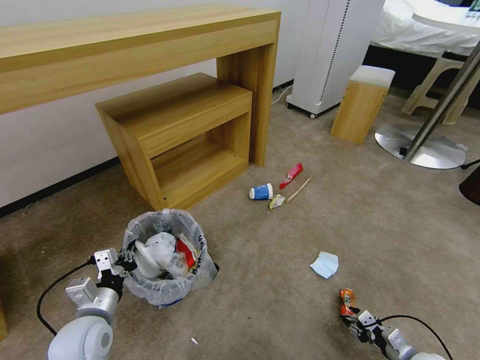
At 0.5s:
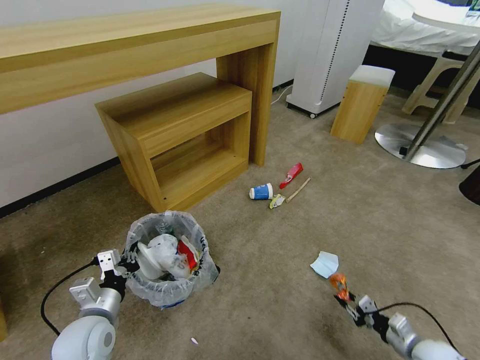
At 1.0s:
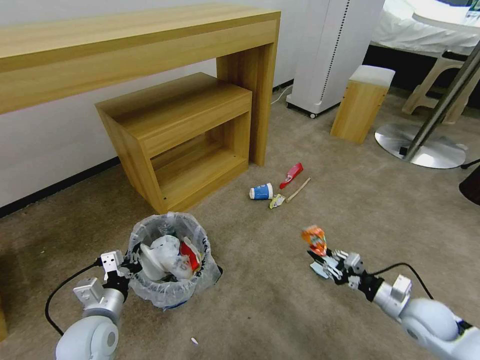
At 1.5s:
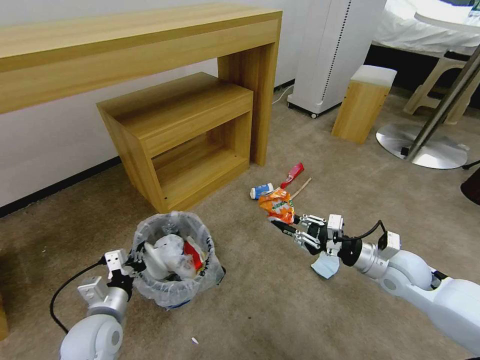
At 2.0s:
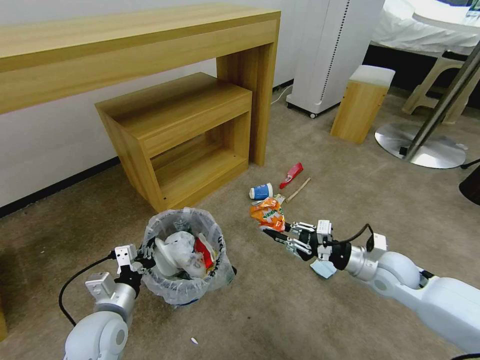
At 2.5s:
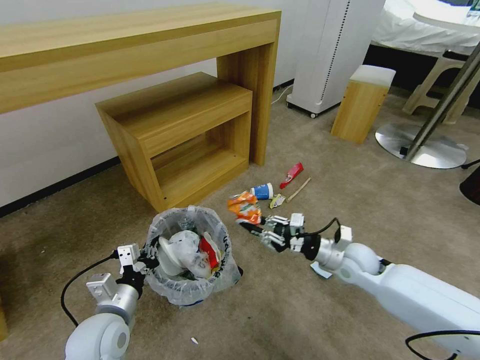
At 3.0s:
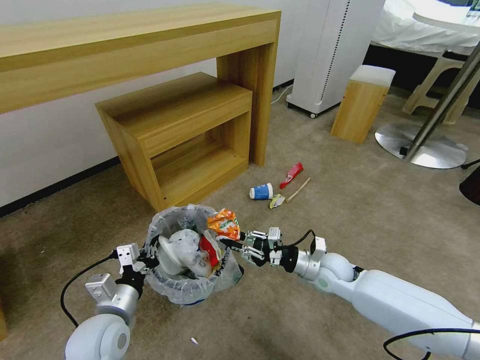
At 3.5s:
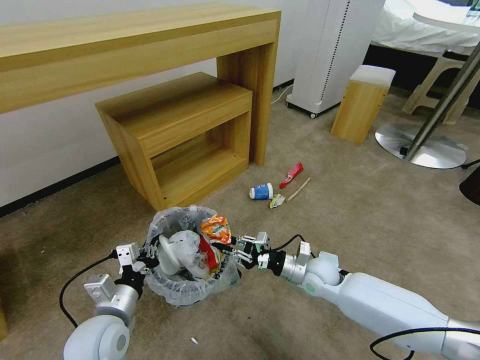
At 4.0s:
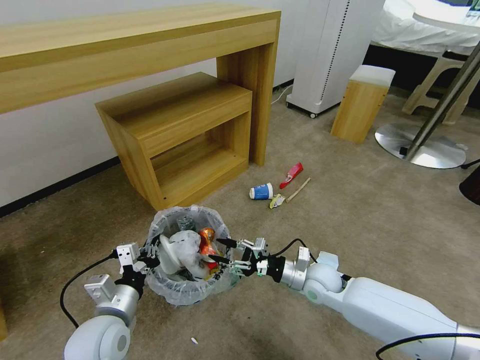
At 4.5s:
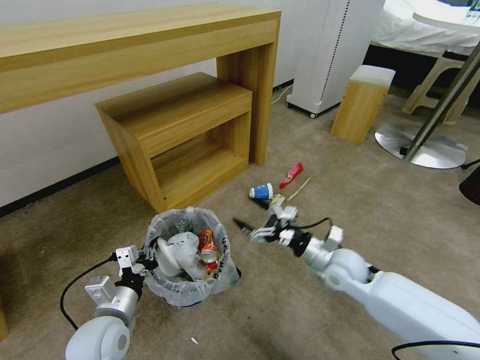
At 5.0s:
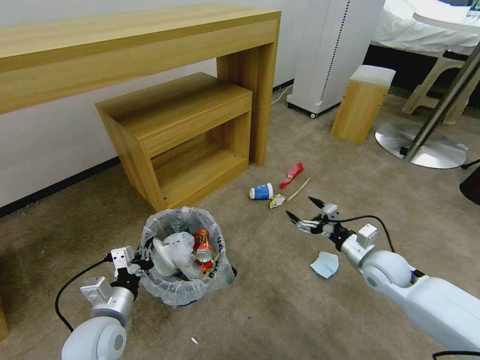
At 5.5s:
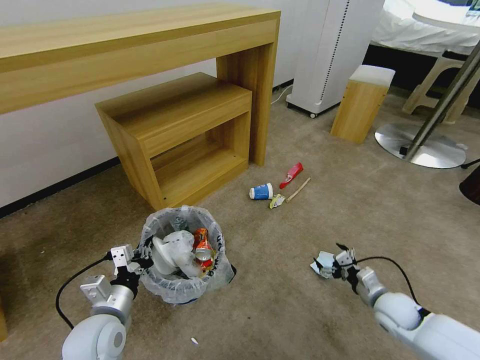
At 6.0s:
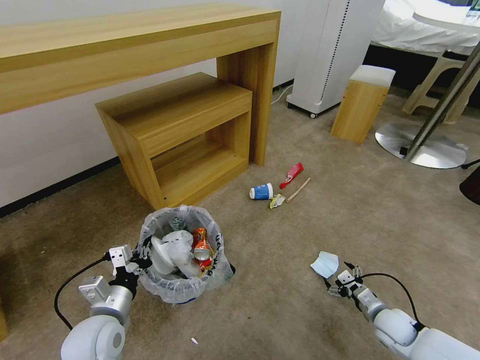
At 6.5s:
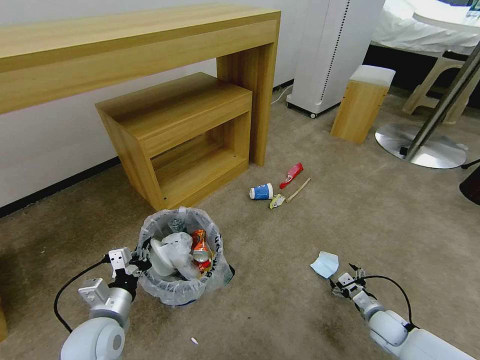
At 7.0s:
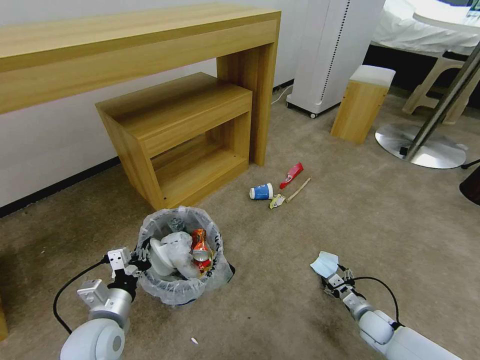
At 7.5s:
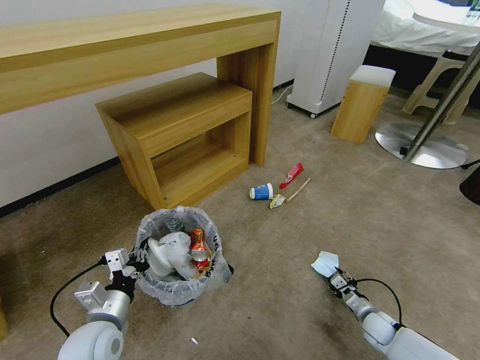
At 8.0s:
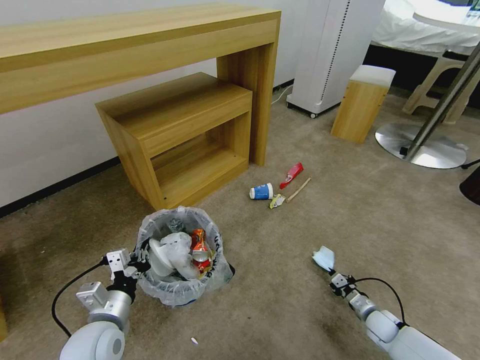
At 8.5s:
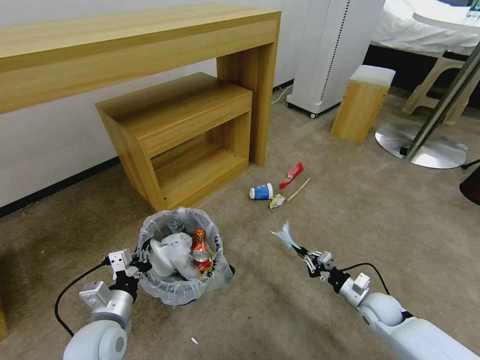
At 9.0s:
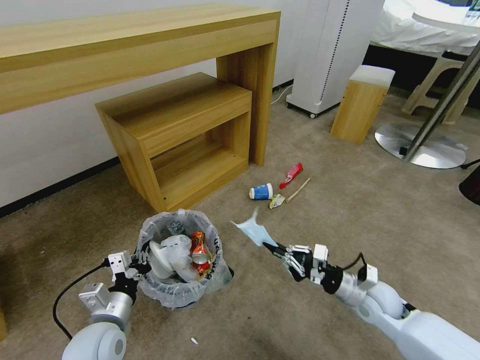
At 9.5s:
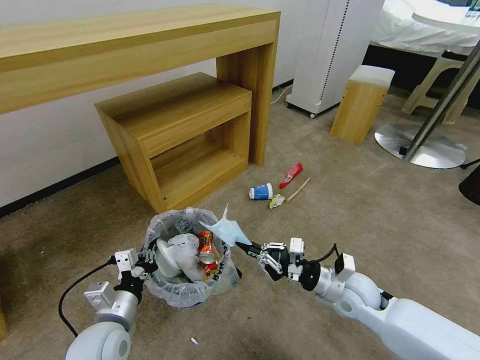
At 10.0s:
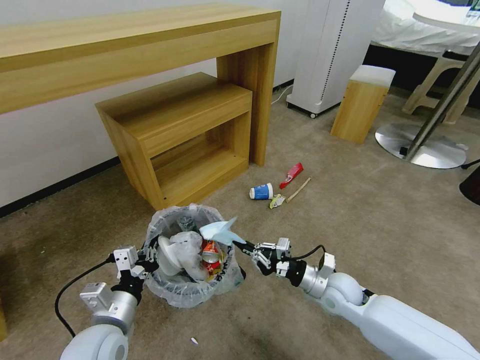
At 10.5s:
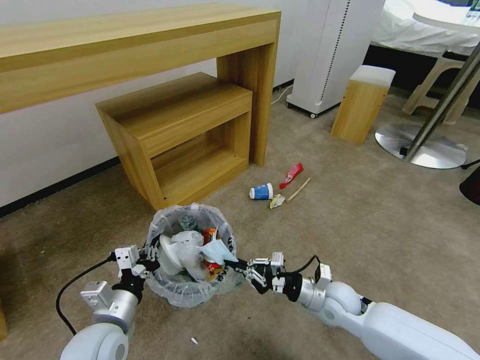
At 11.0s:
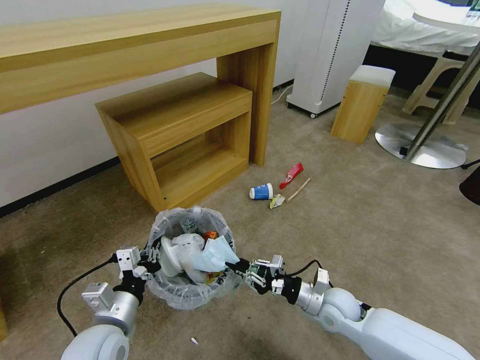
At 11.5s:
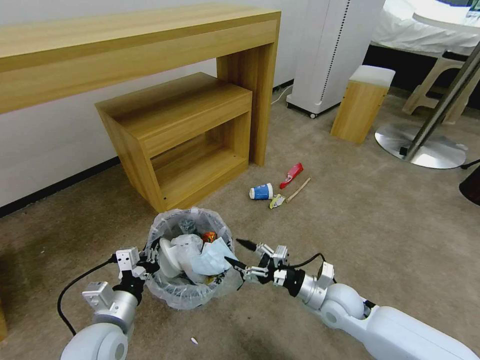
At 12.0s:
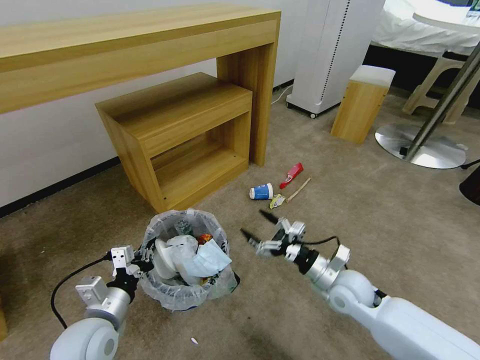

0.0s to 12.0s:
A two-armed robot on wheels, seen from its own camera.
Task of the whole recording: Pick up the trash bin and place the garbage on the floor into it.
0.0s to 2.0s: The right gripper travels upward, forward and to the left by some 30 cm.
2.0s to 4.0s: The right gripper goes about 15 cm to the left and downward.
4.0s to 6.0s: The right gripper travels to the right, downward and backward by roughly 25 cm, and opens.
6.0s to 8.0s: The right gripper heads downward, covering about 5 cm, and closes its fingers.
8.0s to 10.0s: The right gripper travels to the left and upward by approximately 25 cm.
10.0s to 12.0s: The right gripper opens its fingers.

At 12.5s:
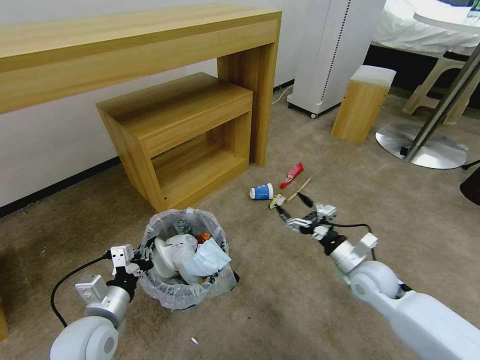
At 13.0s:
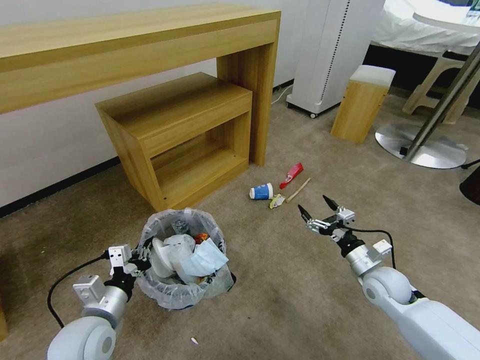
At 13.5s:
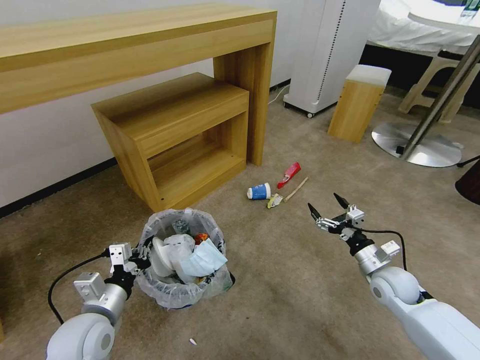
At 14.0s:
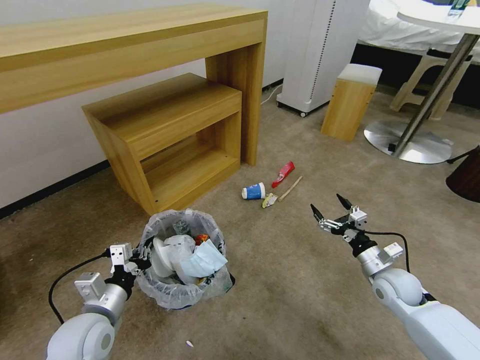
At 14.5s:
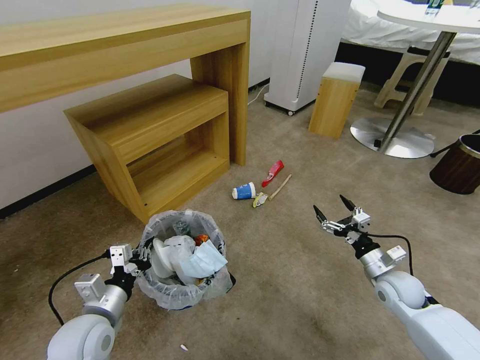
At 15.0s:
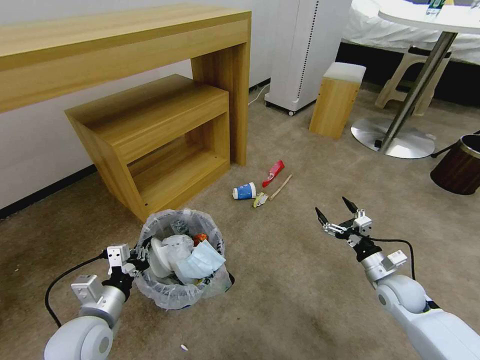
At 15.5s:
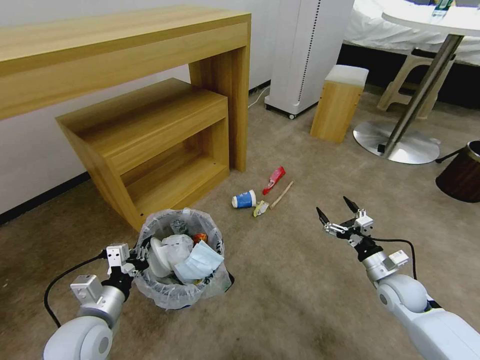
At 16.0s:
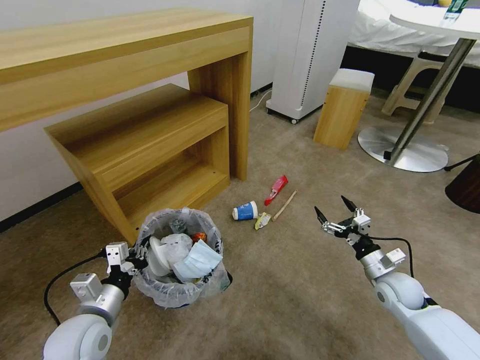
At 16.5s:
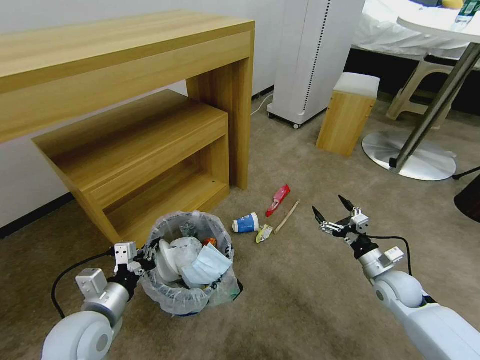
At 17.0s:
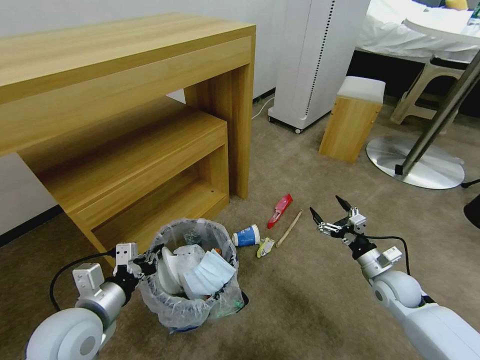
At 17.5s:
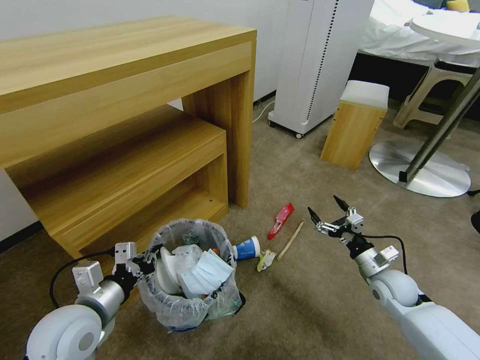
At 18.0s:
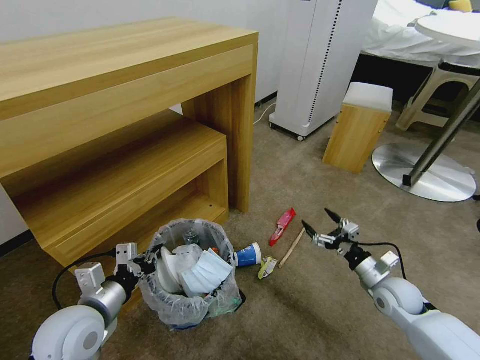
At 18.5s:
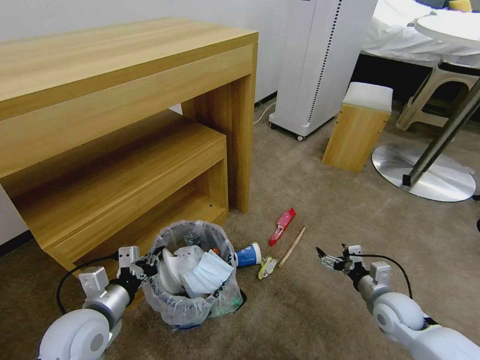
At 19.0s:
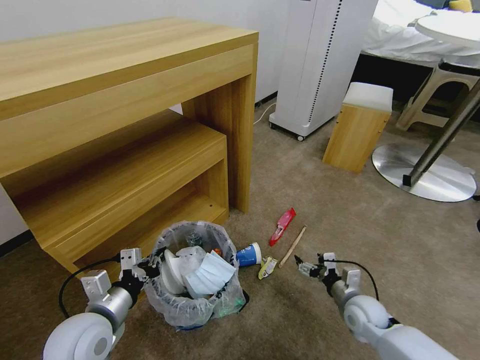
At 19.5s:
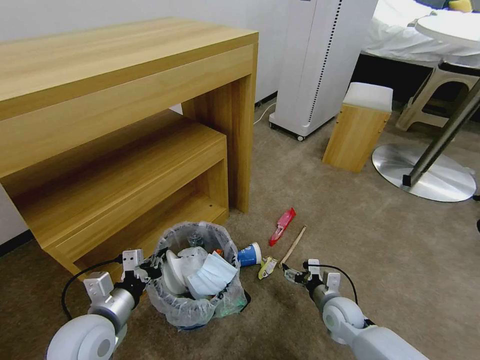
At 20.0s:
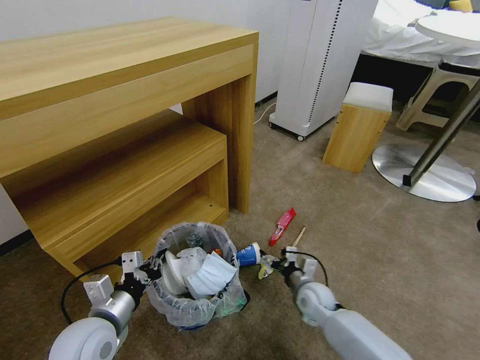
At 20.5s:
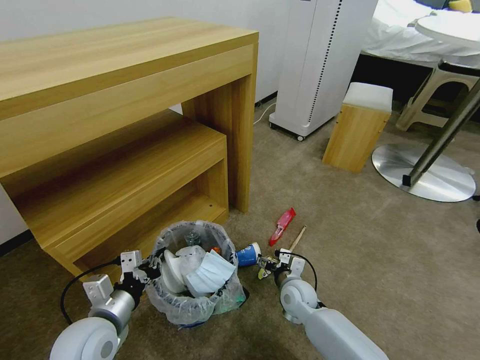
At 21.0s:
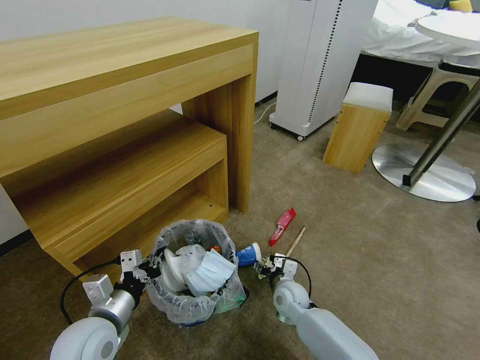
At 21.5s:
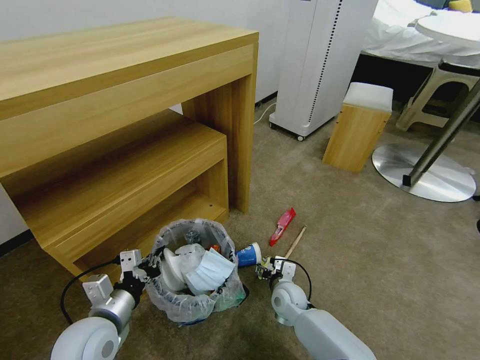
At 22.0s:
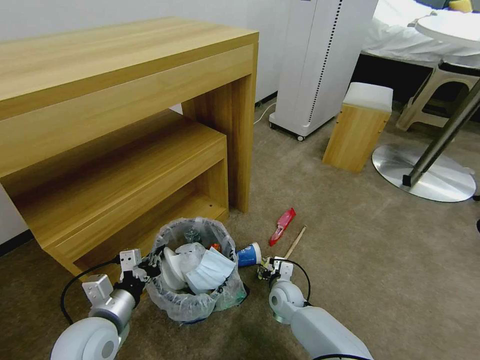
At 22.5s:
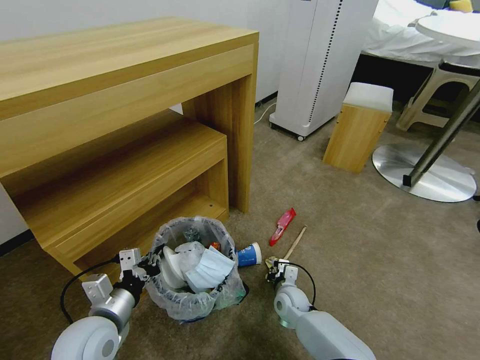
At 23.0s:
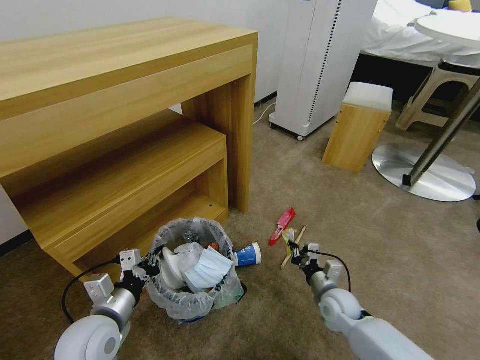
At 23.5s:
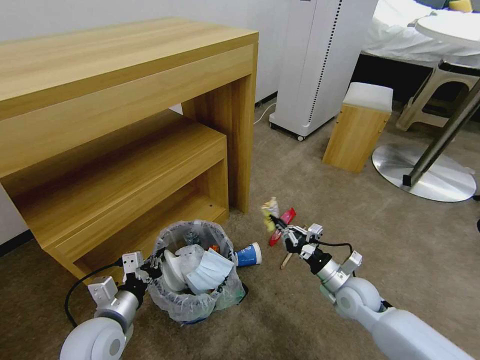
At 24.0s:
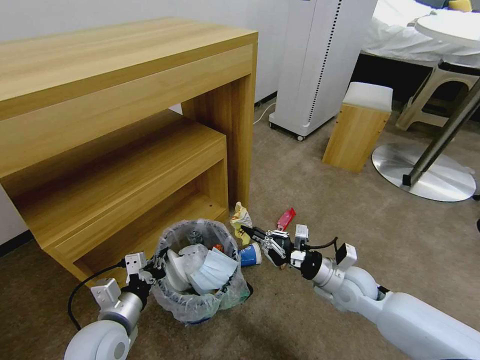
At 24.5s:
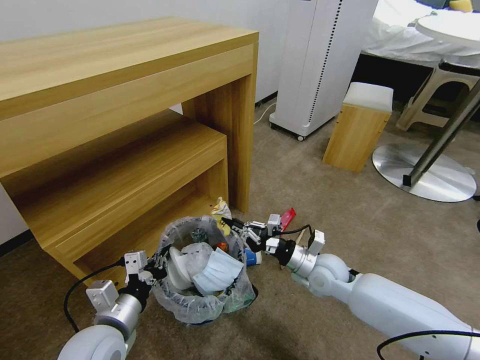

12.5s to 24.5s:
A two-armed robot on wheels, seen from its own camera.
Task of the whole recording: Pick up the trash bin and place the garbage on the floor into it.
12.5s to 14.5s: The right gripper travels to the right by some 5 cm.
16.5s to 18.5s: The right gripper ends up some 5 cm from where it was.
18.5s to 20.5s: The right gripper is displaced to the left by some 20 cm.
20.5s to 22.5s: The right gripper moves downward, approximately 5 cm, and closes its fingers.
22.5s to 24.5s: The right gripper moves upward, some 15 cm.

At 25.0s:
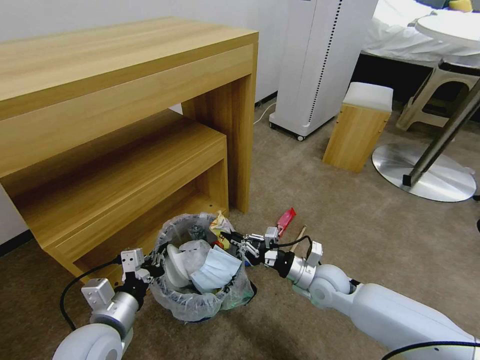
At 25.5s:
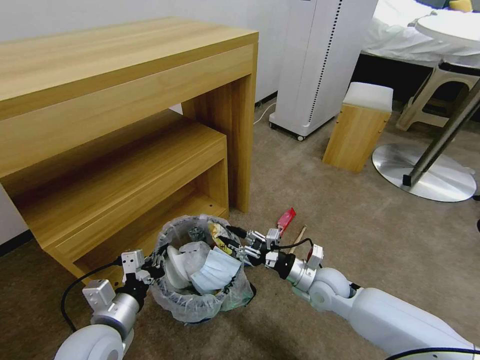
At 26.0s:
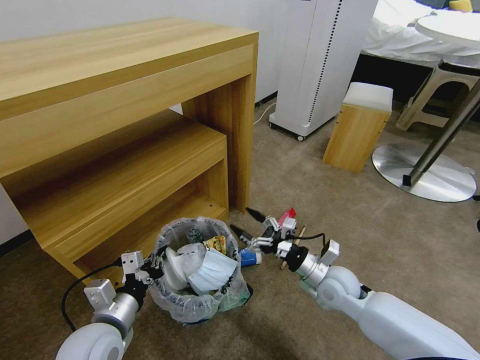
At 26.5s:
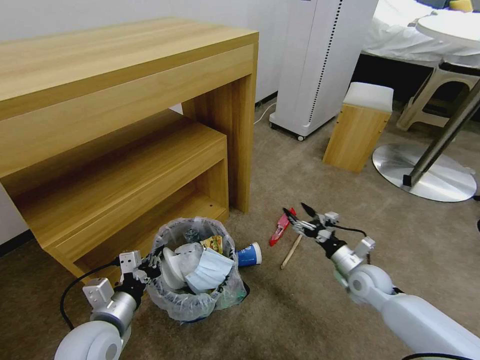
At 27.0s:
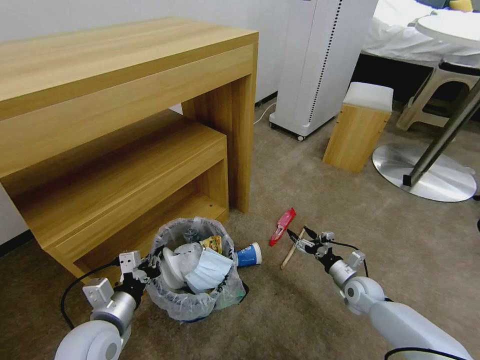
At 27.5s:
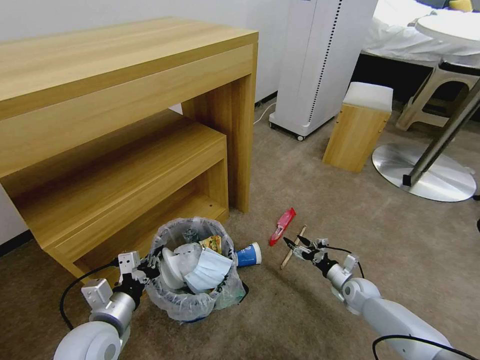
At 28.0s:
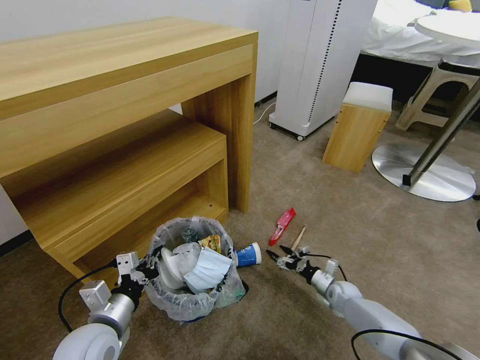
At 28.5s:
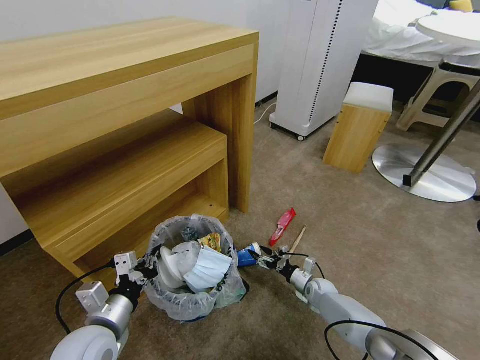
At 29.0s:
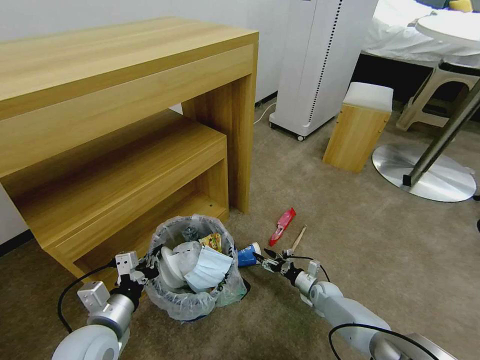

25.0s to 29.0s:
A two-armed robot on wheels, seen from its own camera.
Task of the whole recording: Pick up the trash bin and place the garbage on the floor into it.
25.0s to 27.0s: The right gripper goes approximately 20 cm to the right and downward, and opens its fingers.
27.0s to 29.0s: The right gripper heads downward and to the left, covering approximately 15 cm.
